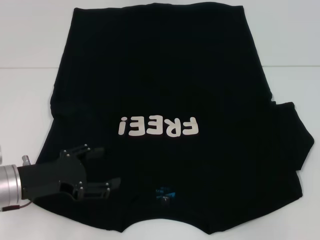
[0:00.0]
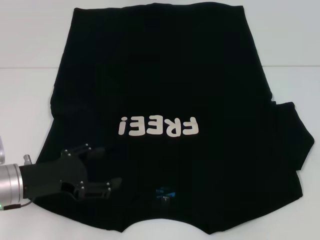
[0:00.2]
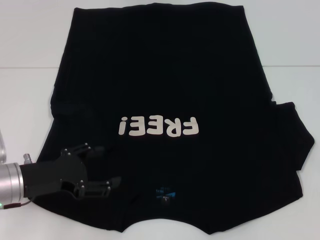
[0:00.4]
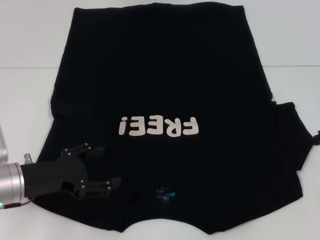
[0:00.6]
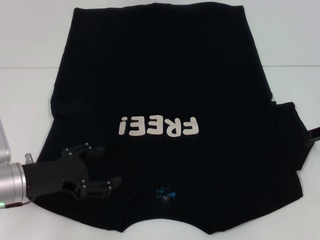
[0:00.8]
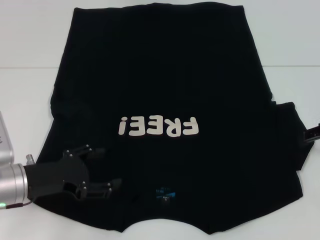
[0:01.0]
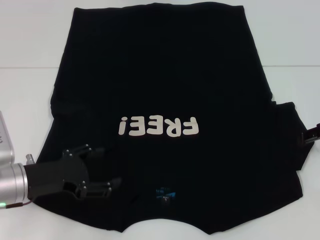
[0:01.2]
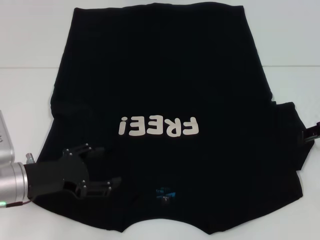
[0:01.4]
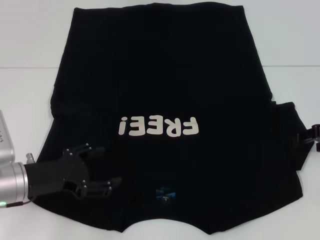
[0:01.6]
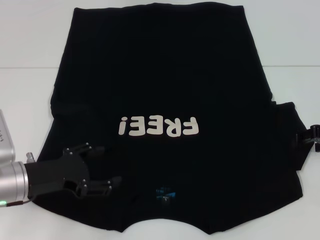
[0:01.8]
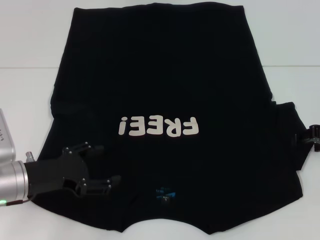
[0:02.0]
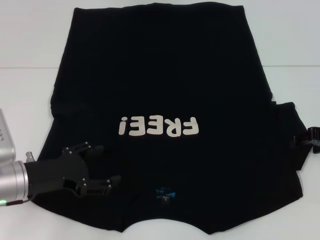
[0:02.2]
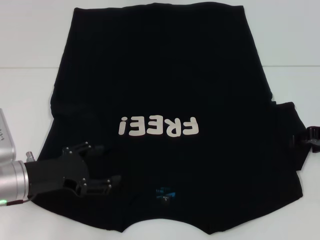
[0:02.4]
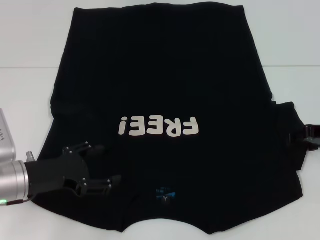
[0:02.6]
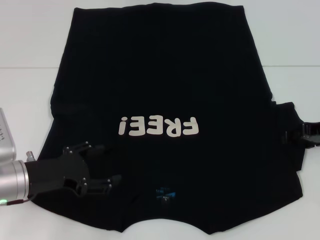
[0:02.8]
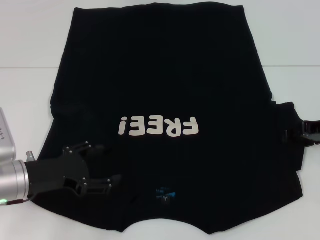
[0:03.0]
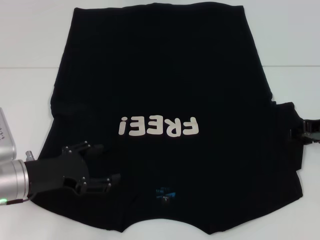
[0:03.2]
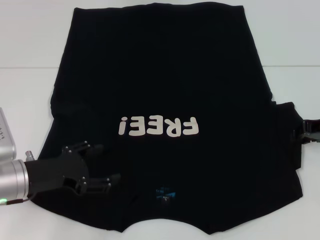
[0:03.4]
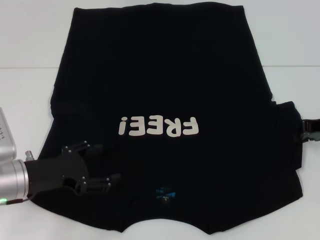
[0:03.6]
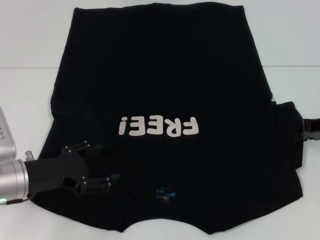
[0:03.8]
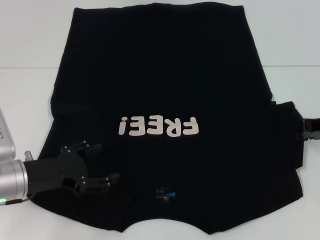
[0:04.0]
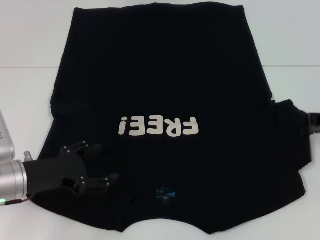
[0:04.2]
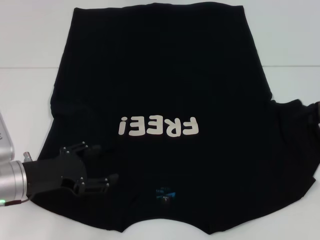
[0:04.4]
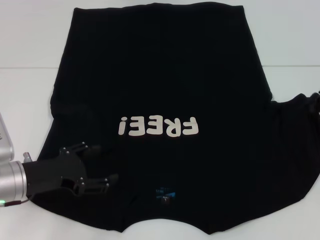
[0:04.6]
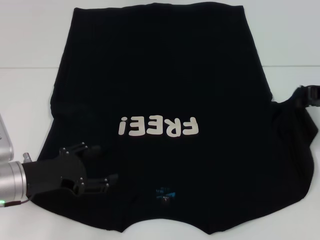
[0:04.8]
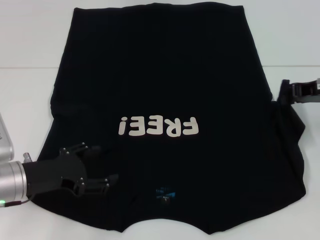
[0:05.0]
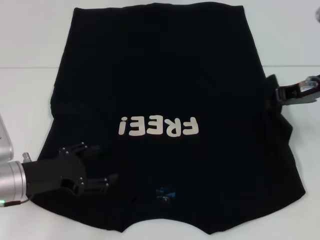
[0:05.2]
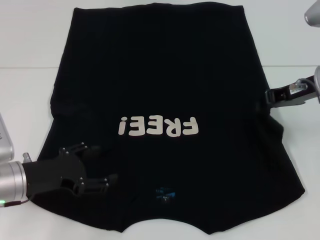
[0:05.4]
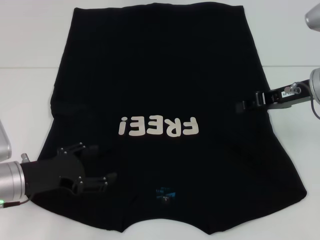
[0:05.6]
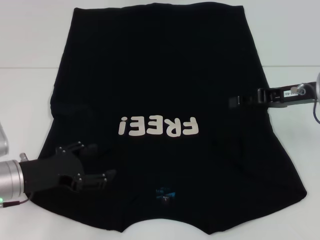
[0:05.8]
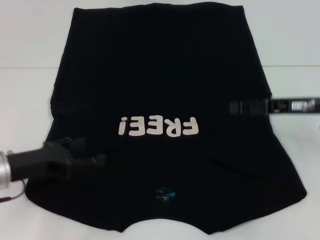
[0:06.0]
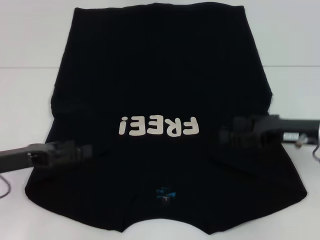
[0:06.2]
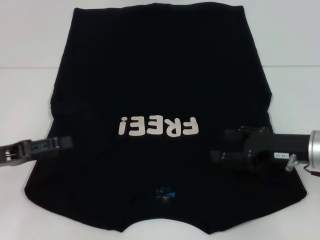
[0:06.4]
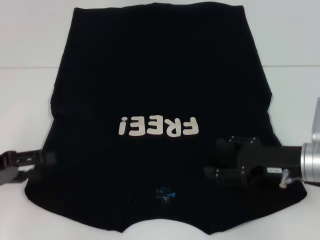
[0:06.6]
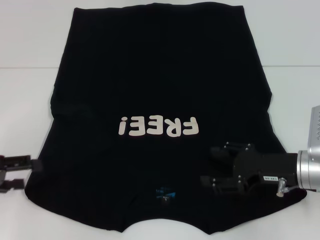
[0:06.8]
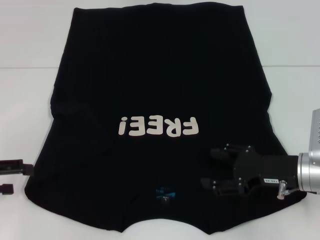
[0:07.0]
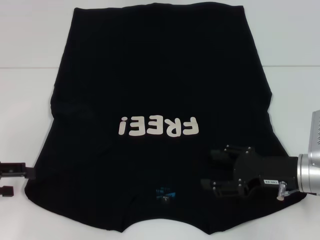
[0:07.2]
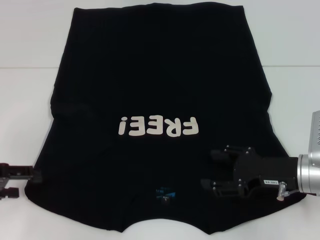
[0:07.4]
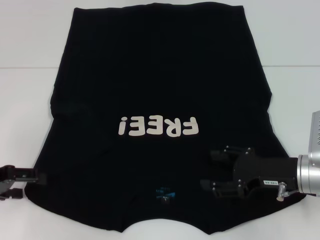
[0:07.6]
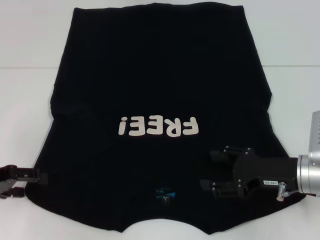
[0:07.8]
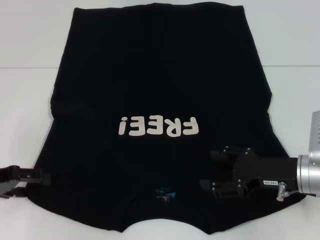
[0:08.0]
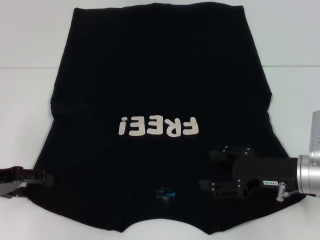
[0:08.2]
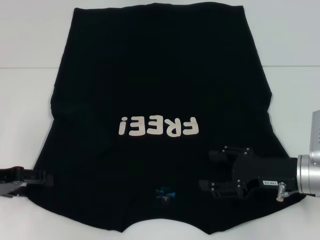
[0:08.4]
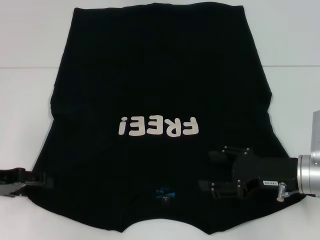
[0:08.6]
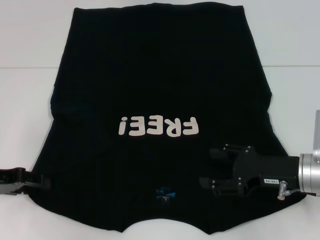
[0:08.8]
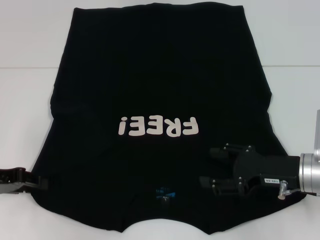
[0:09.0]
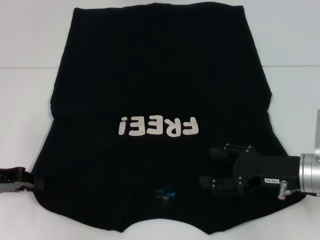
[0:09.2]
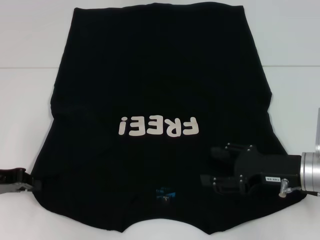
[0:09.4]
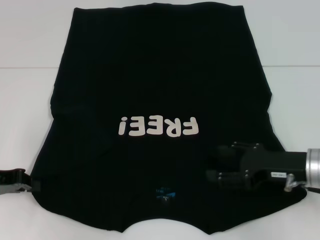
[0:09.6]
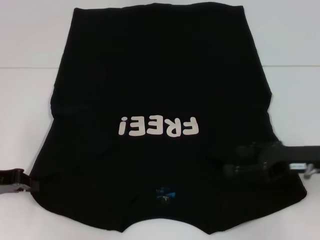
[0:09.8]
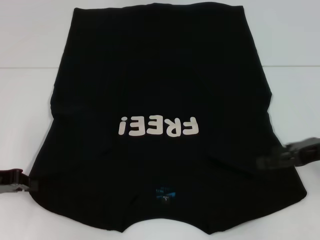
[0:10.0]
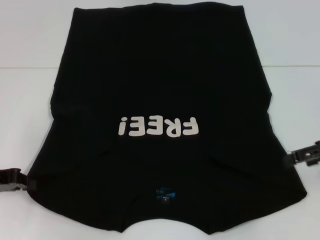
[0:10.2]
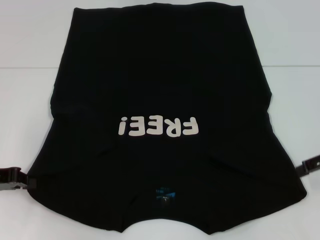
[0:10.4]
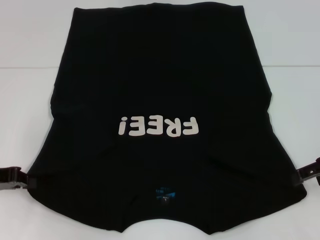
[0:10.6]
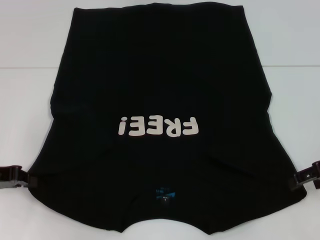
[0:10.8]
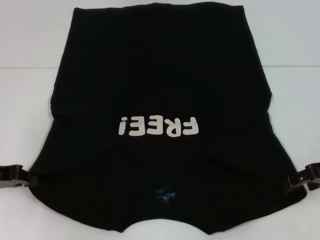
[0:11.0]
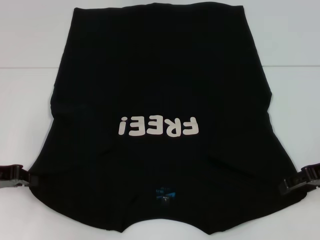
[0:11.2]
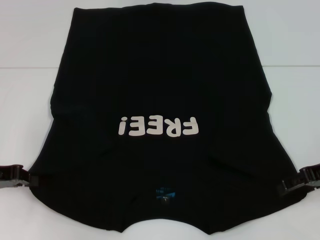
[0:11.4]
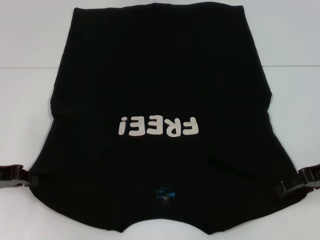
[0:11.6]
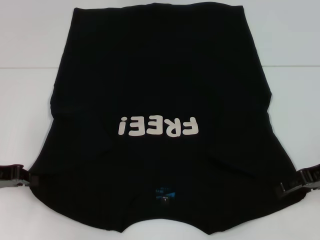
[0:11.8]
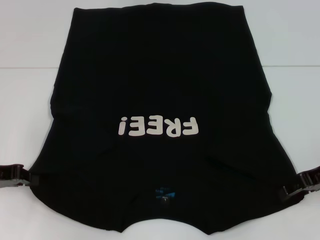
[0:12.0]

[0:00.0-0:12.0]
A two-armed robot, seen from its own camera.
Step, 0:00.0 to 0:06.0: Fold the bottom right sleeve with your right hand.
Step, 0:06.2 to 0:09.6: Grab the bottom left corner with your left hand.
0:01.6 to 0:03.0: There are only small adjustments of the grippers.
0:03.0 to 0:04.4: The right gripper closes.
0:04.4 to 0:06.0: The right gripper shifts approximately 5 cm to the left, and opens up.
0:06.0 to 0:07.6: The left gripper shifts roughly 5 cm to the left. The right gripper goes approximately 10 cm downward and backward, and opens its fingers.
0:07.6 to 0:09.0: The left gripper closes up.
0:09.0 to 0:10.4: The left gripper closes up. The right gripper goes about 15 cm upward and to the right.
0:10.4 to 0:12.0: The right gripper ends up roughly 5 cm from where it was.

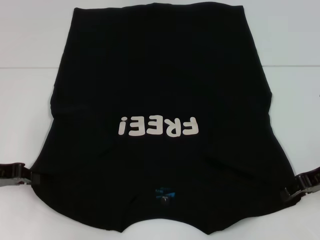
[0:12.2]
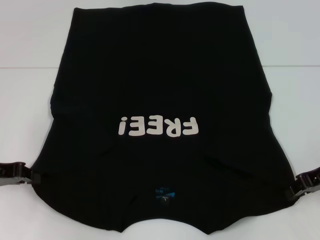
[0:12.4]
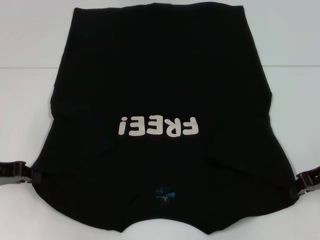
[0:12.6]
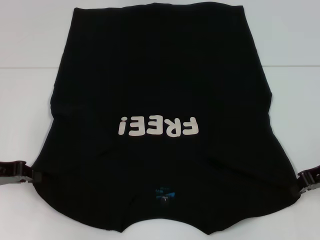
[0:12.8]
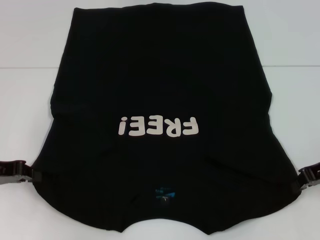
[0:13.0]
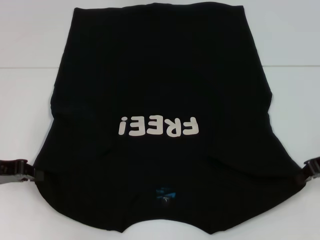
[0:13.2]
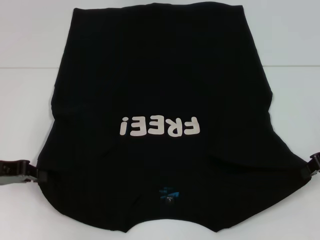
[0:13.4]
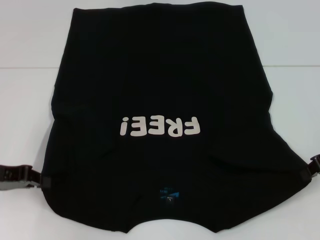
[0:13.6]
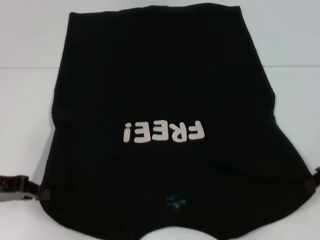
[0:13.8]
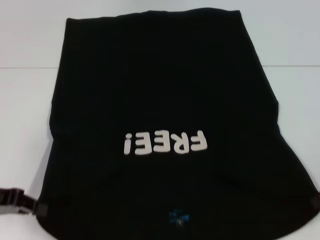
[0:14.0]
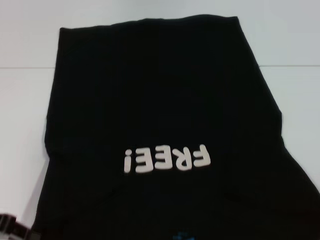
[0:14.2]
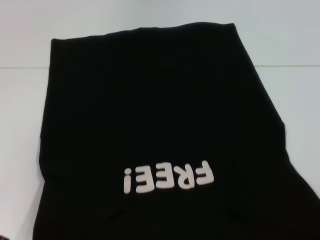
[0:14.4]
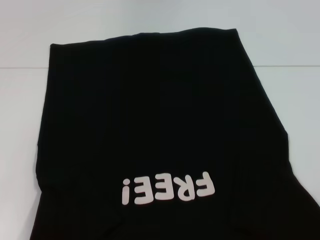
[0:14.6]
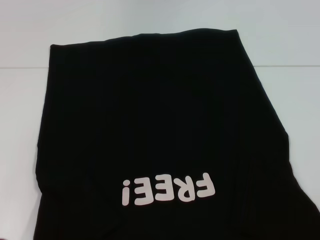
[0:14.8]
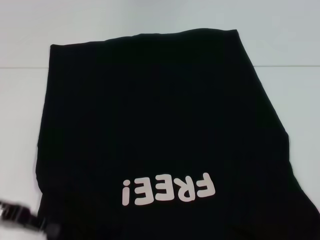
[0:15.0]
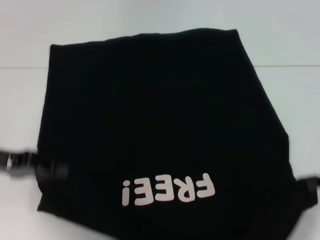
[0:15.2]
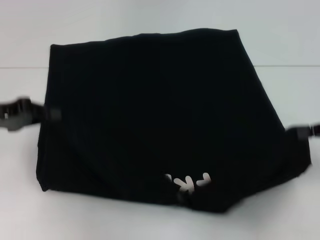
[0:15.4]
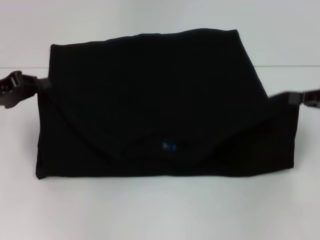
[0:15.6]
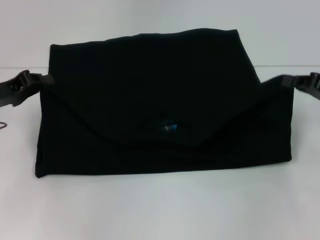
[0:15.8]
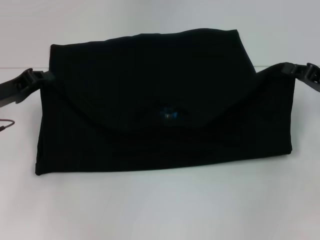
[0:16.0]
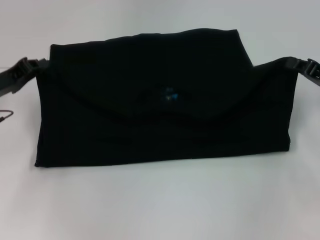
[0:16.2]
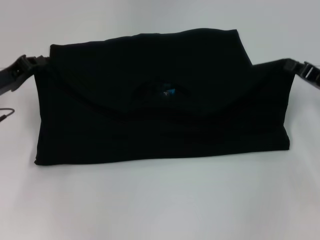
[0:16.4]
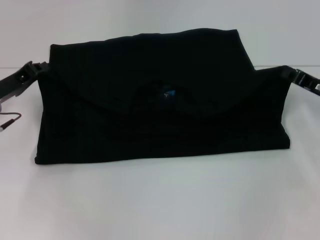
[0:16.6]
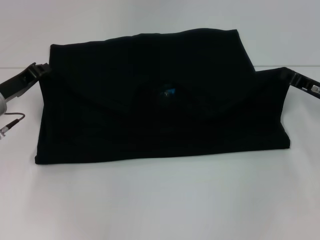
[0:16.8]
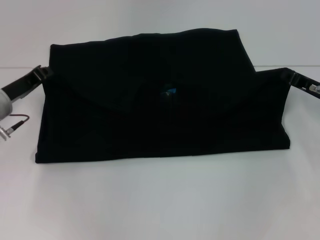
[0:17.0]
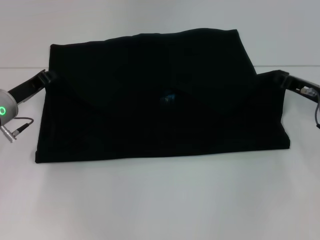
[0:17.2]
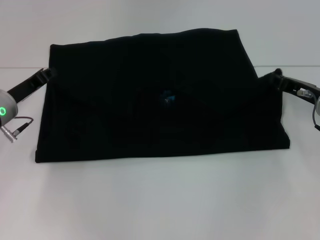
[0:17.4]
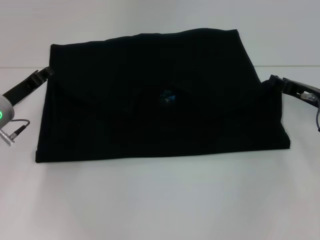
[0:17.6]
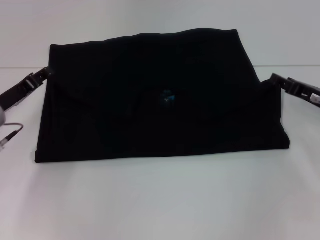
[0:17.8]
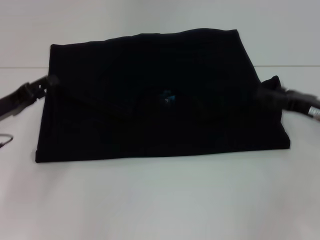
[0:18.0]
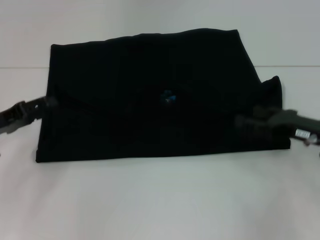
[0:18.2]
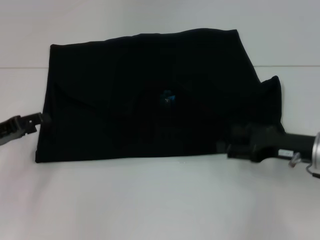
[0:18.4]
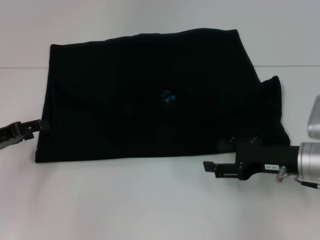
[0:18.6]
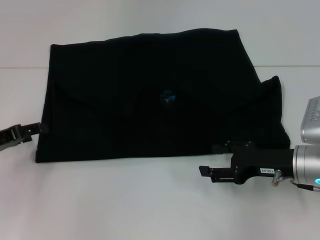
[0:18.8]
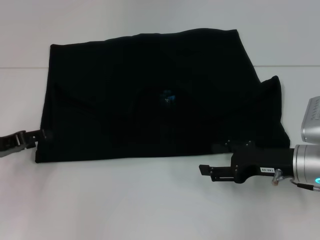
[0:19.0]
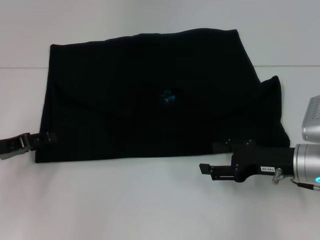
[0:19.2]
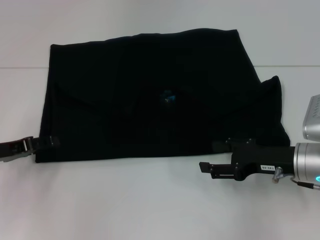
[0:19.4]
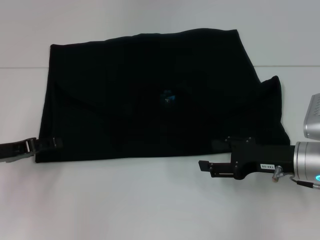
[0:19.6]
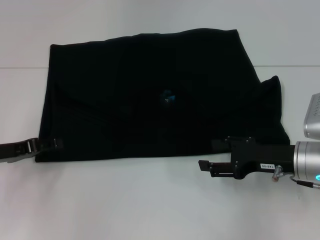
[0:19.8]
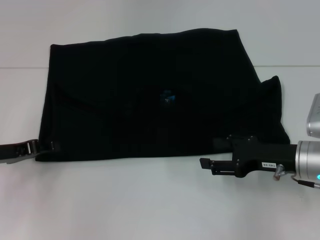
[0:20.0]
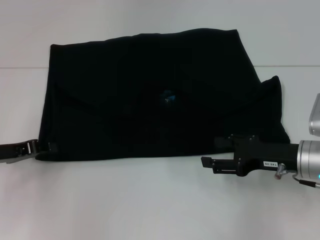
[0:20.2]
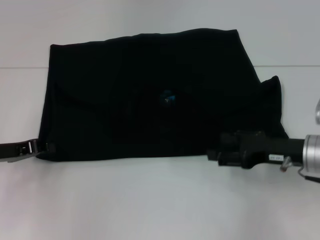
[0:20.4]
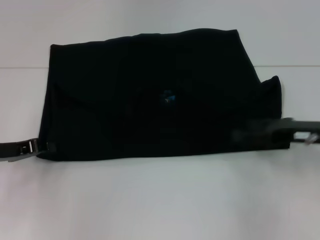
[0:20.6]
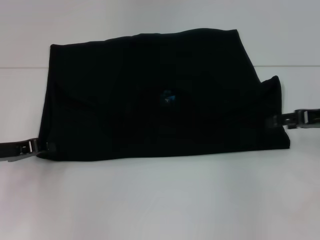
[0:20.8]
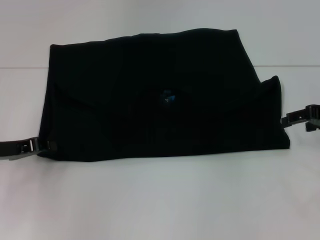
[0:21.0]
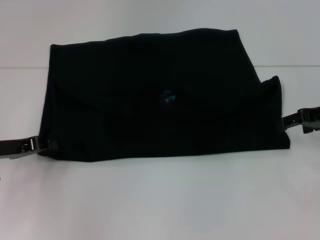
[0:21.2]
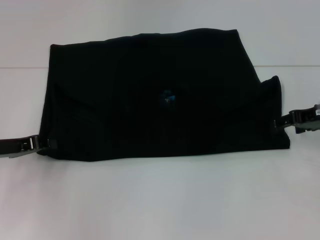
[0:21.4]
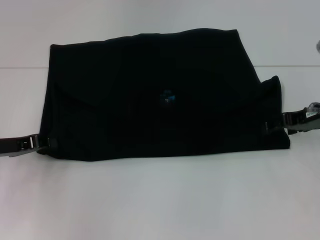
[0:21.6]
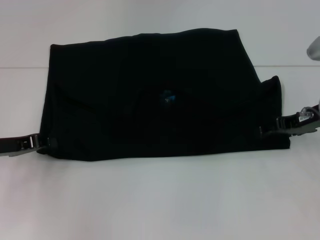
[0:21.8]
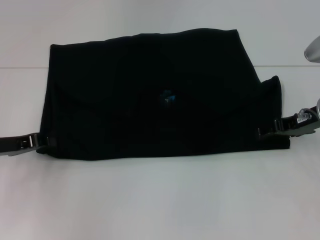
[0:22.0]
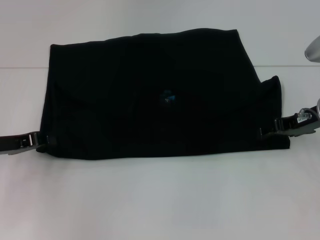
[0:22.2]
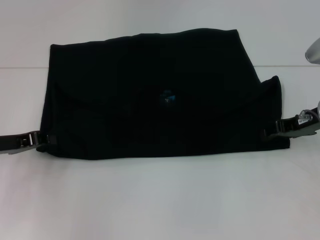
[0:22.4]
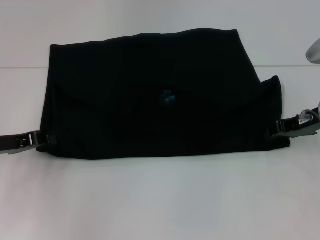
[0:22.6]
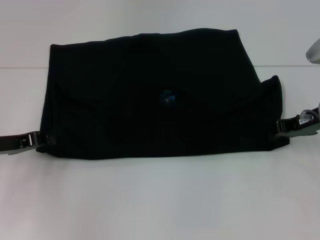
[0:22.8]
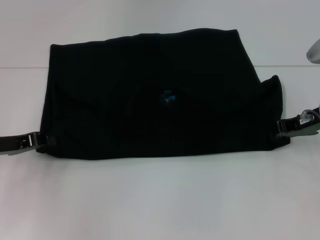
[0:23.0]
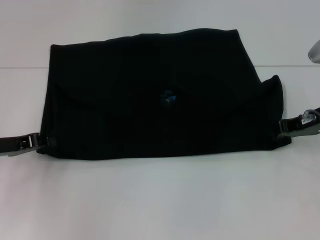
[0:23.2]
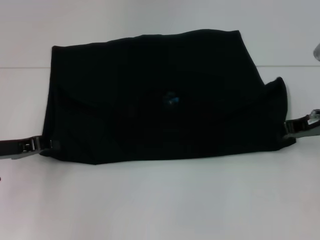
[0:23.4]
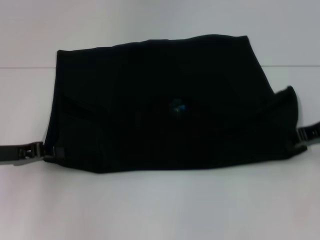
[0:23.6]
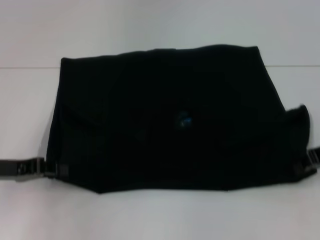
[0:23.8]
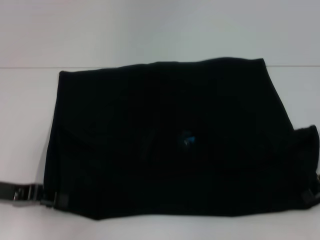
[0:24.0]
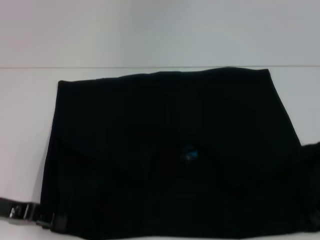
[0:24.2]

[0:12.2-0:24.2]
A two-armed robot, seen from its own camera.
Step, 0:13.8 to 0:18.2: Fold the clothes with your left hand.
Step, 0:13.8 to 0:18.2: Fold the clothes with your right hand.
0:12.2 to 0:13.8: The right gripper closes.
0:15.2 to 0:16.6: The left gripper heads forward, covering roughly 5 cm, while the right gripper goes approximately 10 cm forward and downward.
0:16.6 to 0:18.2: The left gripper travels backward by about 5 cm, and opens its fingers. The right gripper changes place by roughly 5 cm, and opens.
0:18.2 to 0:19.8: The right gripper heads to the left, covering roughly 5 cm.
0:19.8 to 0:21.2: The right gripper travels upward, forward and to the right by about 15 cm. The left gripper closes its fingers.
0:21.2 to 0:22.6: The grippers stay close to where they were, moving slightly.
0:22.6 to 0:24.2: The grippers both shift backward by some 5 cm. The right gripper closes its fingers.
